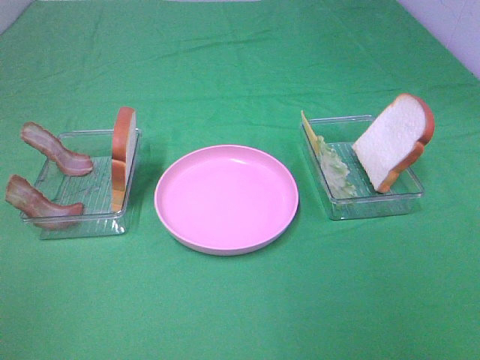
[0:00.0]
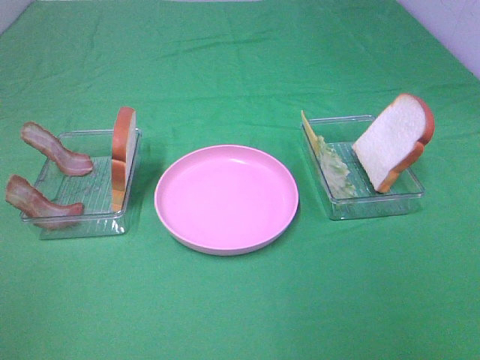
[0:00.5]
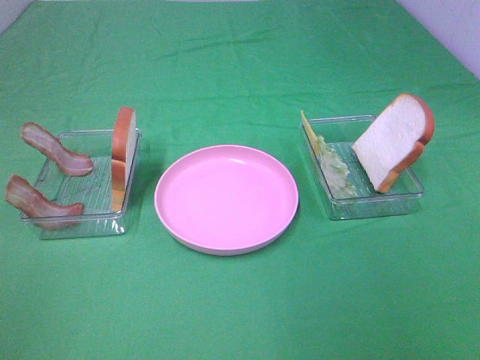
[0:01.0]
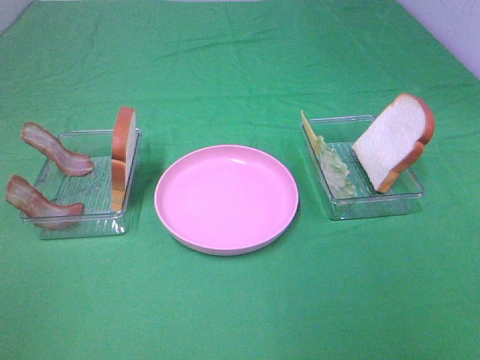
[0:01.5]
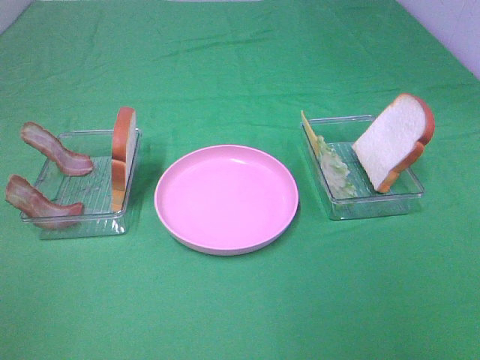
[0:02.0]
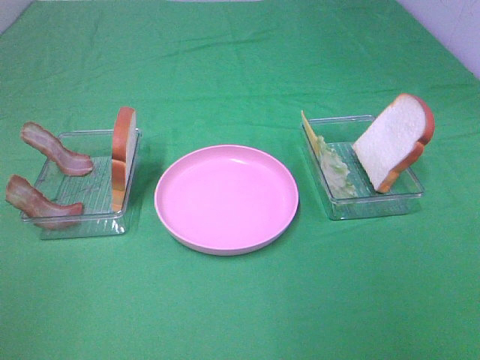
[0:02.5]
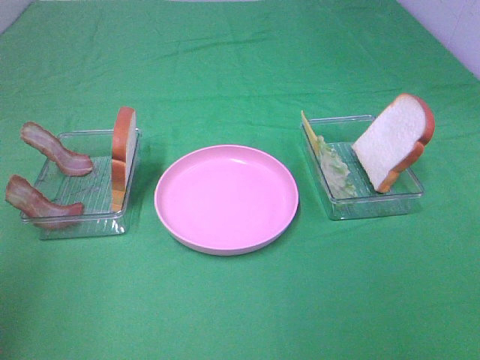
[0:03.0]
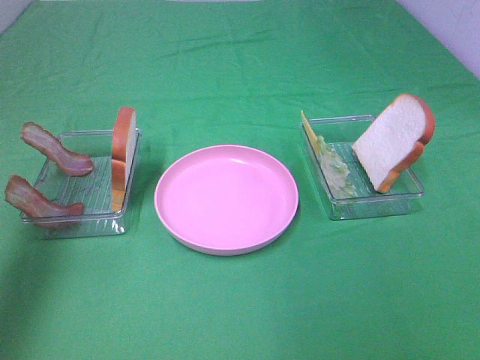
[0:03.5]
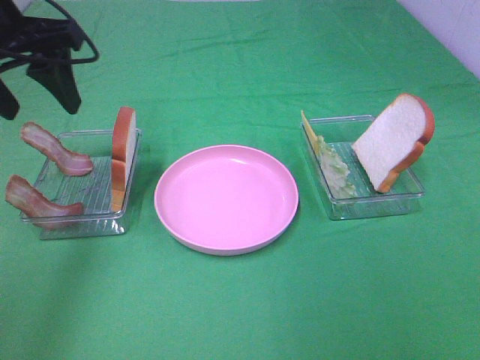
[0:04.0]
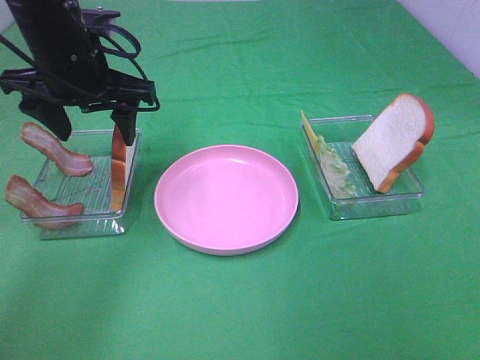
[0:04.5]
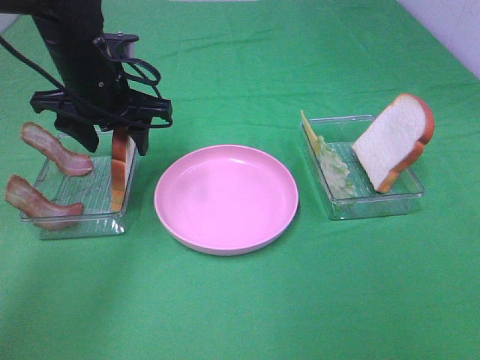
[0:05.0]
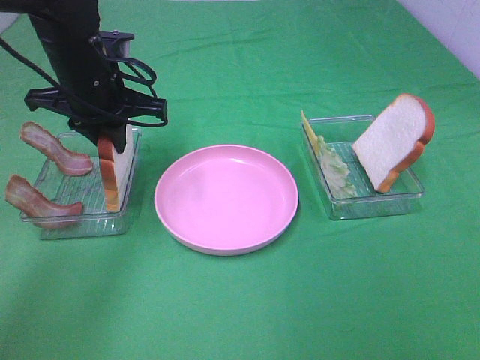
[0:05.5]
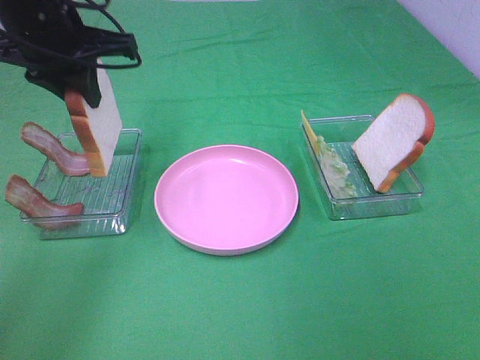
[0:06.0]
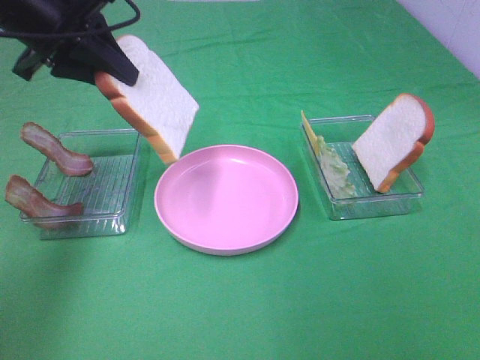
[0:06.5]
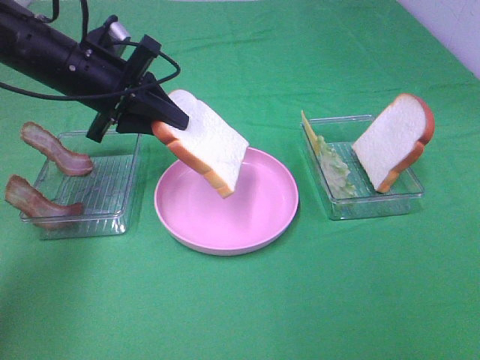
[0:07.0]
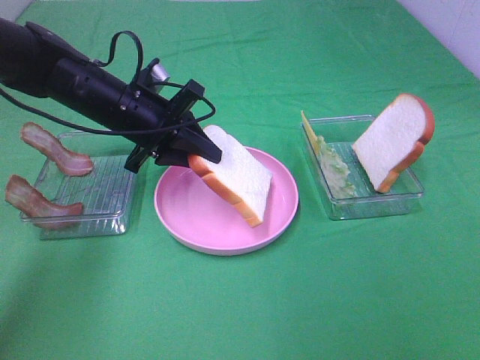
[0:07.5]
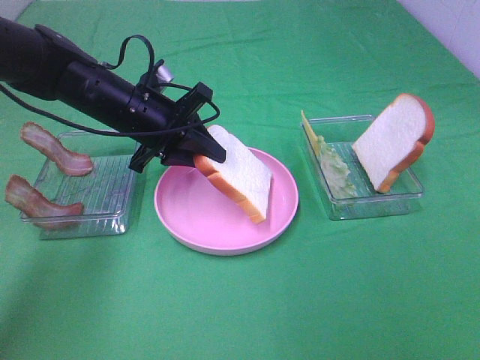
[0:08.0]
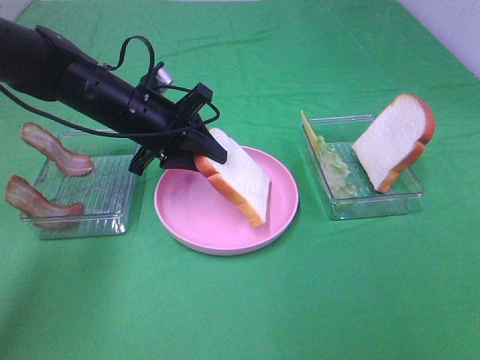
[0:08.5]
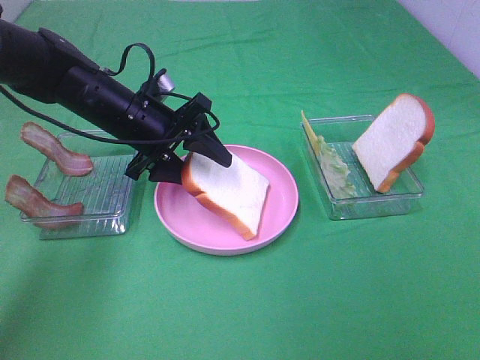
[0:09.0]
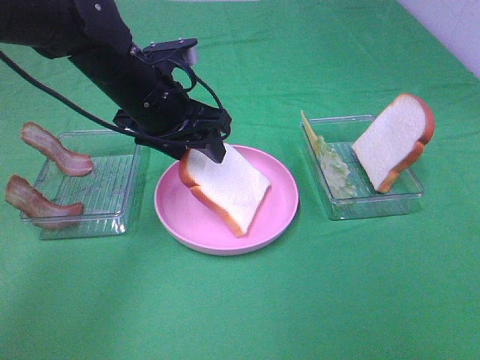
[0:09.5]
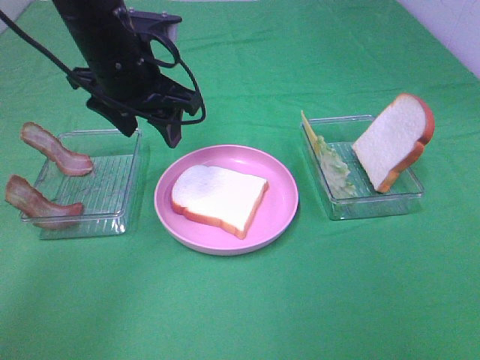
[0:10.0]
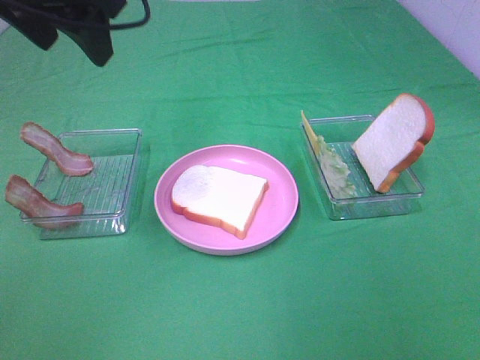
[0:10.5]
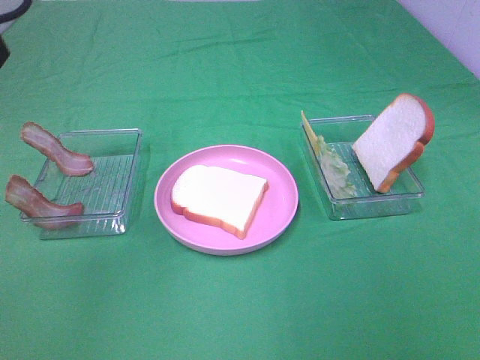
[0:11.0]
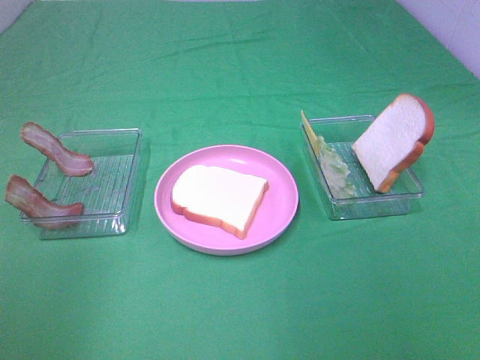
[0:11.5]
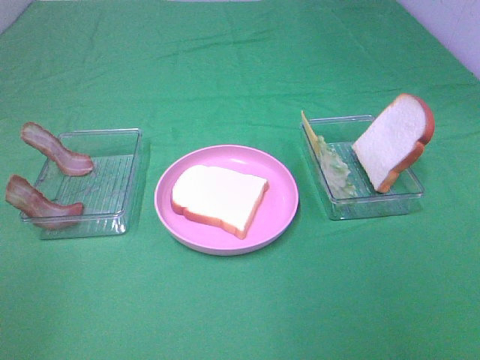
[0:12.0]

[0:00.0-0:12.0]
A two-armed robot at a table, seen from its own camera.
Task of the whole recording: Make sandwiches.
Step, 0:00.0 to 0:05.5: Left hand:grab the bread slice.
Step, 0:06.0 to 0:09.5: Left hand:place the bread slice on the plate.
0:00.0 to 0:02.0: Neither gripper changes place.
0:02.0 to 0:04.0: The left gripper moves forward, approximately 35 cm.
0:04.0 to 0:06.0: The left gripper travels downward and back again, some 10 cm each way, and closes.
0:06.0 to 0:08.0: The left gripper heads downward and to the right, covering approximately 15 cm.
0:08.0 to 0:10.0: The left gripper moves upward, approximately 10 cm, and opens up.
0:10.0 to 0:12.0: The left gripper goes about 40 cm backward and to the left.

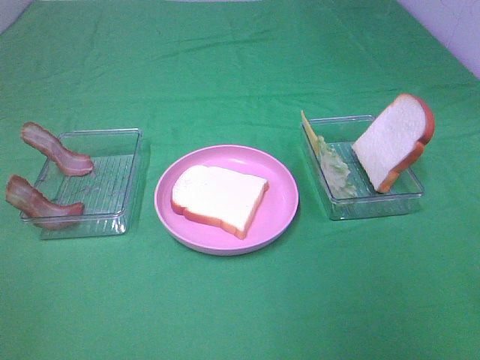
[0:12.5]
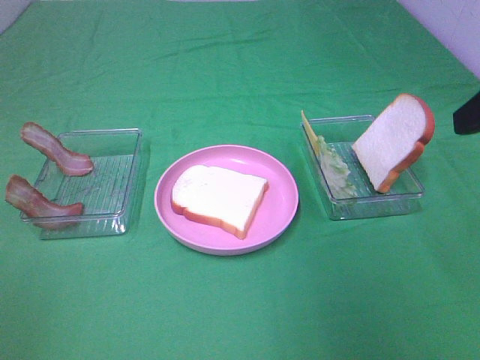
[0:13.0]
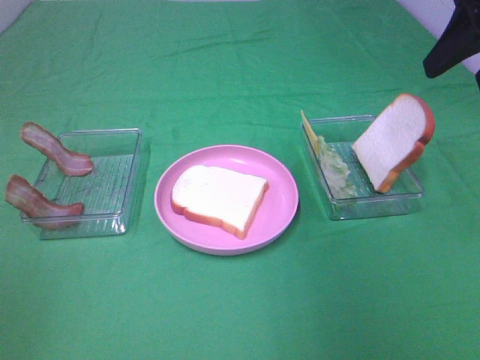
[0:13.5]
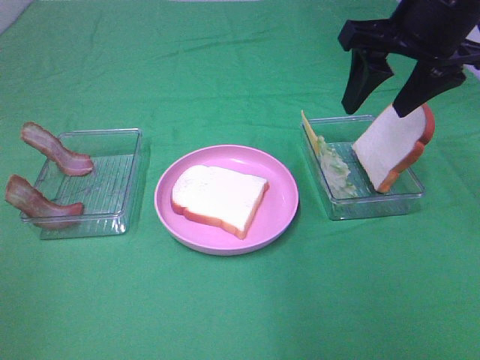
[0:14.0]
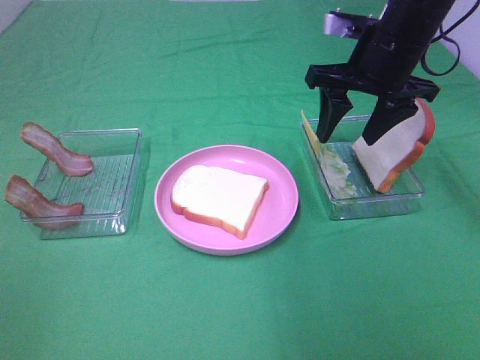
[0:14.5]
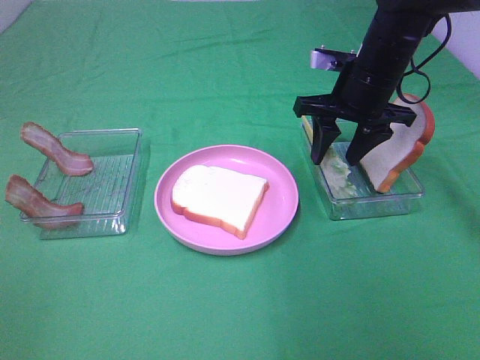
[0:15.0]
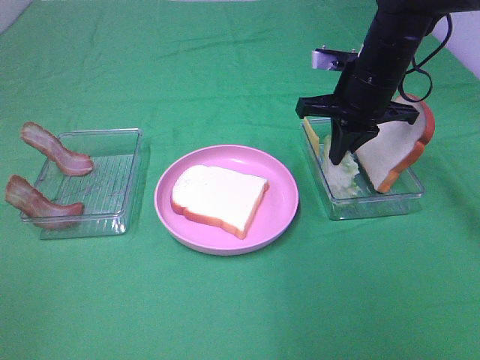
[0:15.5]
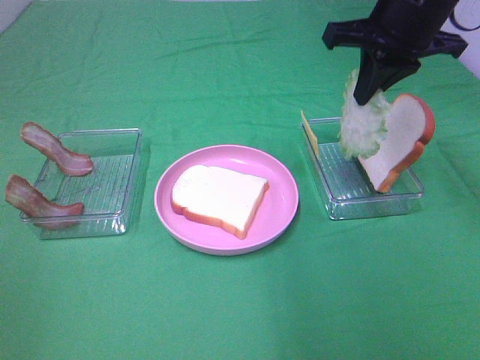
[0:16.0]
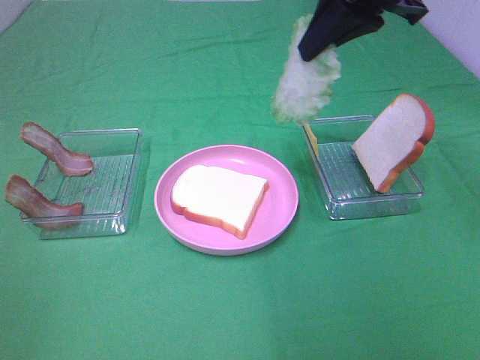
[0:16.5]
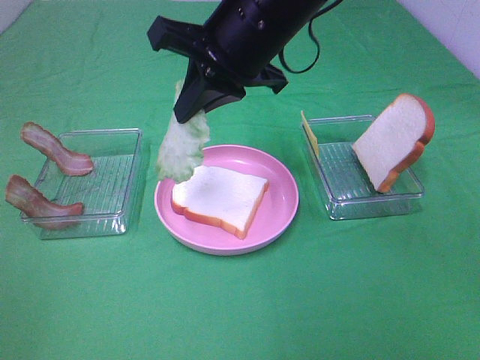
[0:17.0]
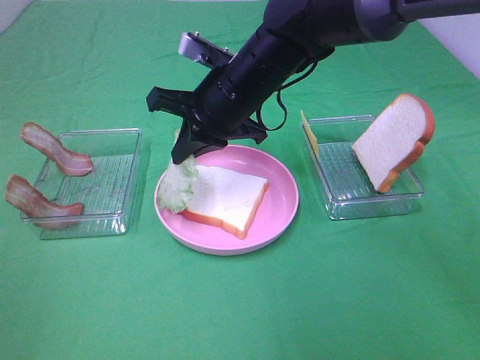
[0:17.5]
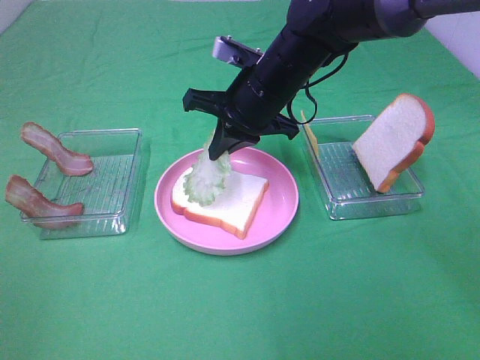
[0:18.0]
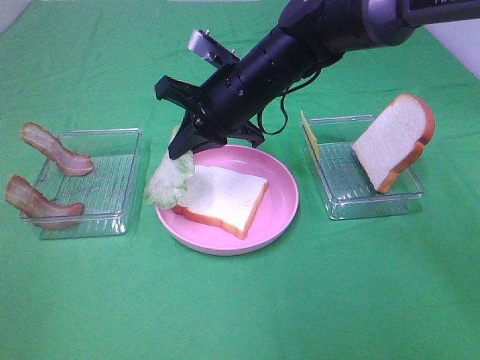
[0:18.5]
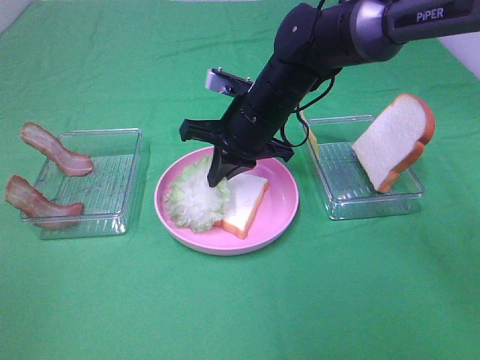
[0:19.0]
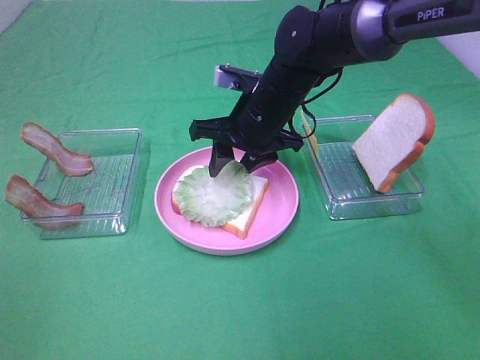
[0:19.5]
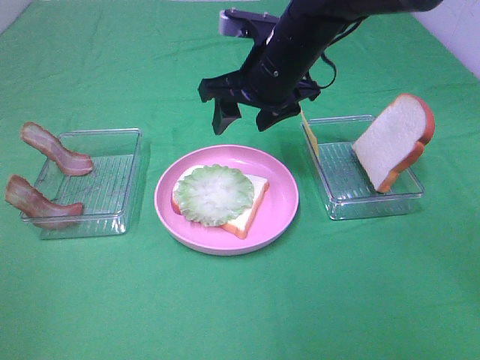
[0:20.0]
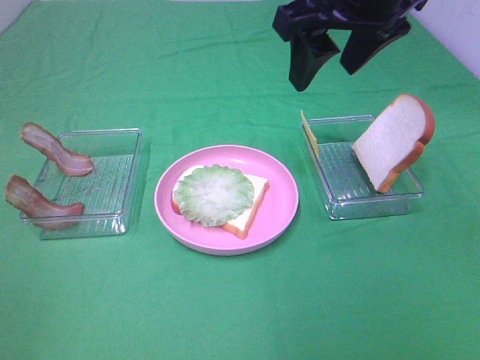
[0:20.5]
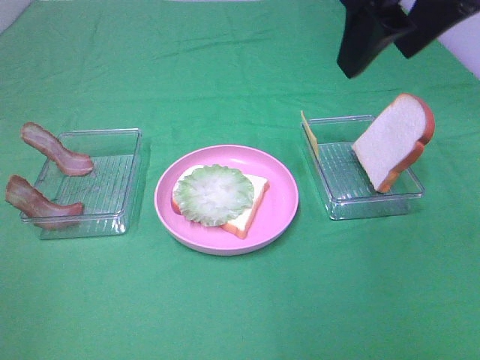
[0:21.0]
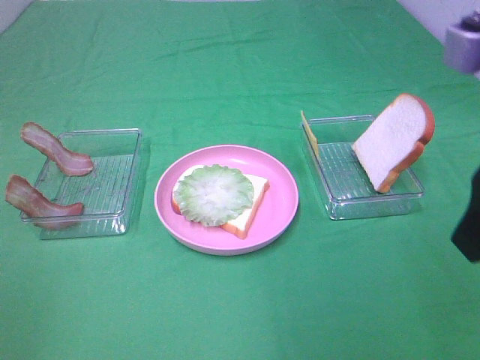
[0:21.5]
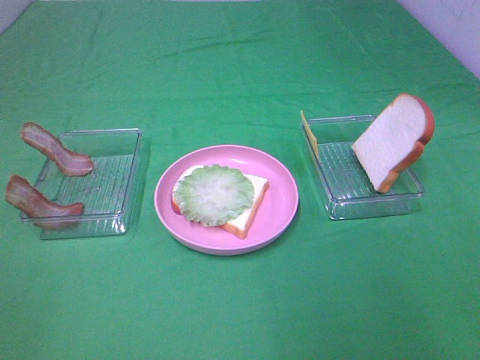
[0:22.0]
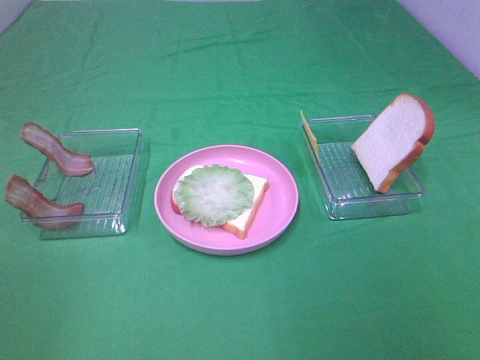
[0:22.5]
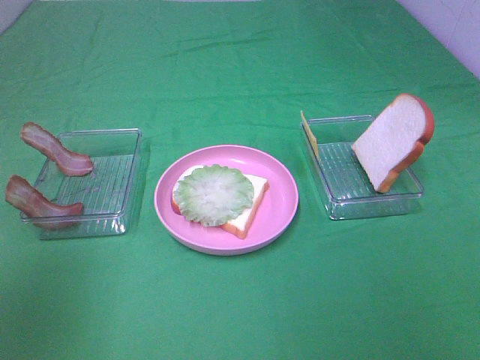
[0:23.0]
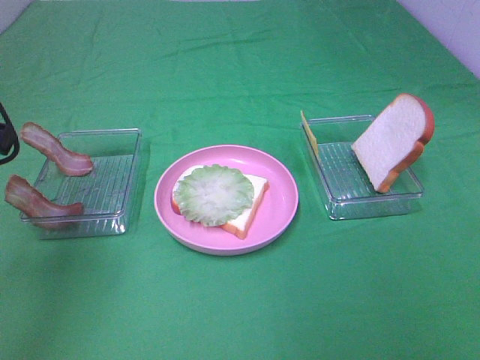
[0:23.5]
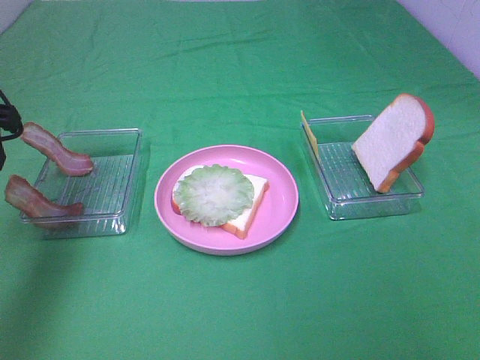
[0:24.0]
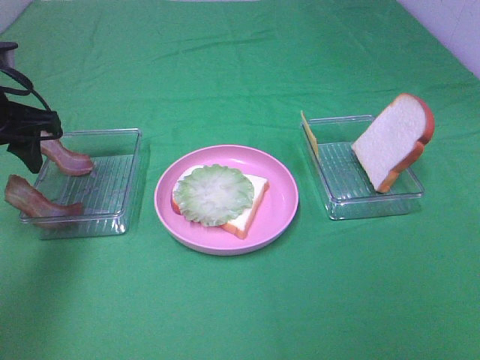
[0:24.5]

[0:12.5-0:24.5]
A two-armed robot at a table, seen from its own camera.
Task of the whole recording: Make sandwiches.
Step, 0:12.5 to 0:15.0: Right hand:grab the lettuce slice.
Step, 0:15.5 to 0:20.0: Right hand:place the lettuce slice on the bread slice.
0:12.5 to 0:14.5: The right gripper shifts roughly 30 cm forward.
0:14.5 to 0:16.5: The right gripper moves upward and backward, roughly 10 cm, and closes its fingers.
0:16.5 to 0:18.5: The right gripper travels downward and to the left by about 20 cm.
0:18.5 to 0:20.5: The right gripper travels upward and to the right by roughly 20 cm, and opens its fingers.
0:20.5 to 0:22.5: The right gripper is displaced backward and to the right by approximately 35 cm.
0:22.5 to 0:24.5: The left gripper is displaced forward by approximately 30 cm.

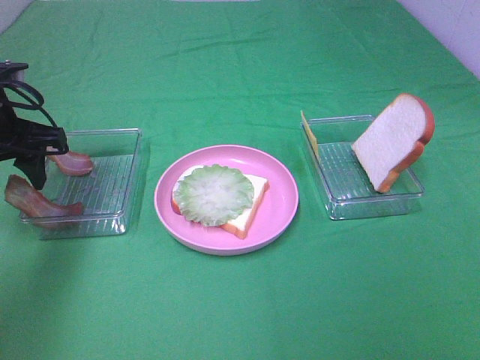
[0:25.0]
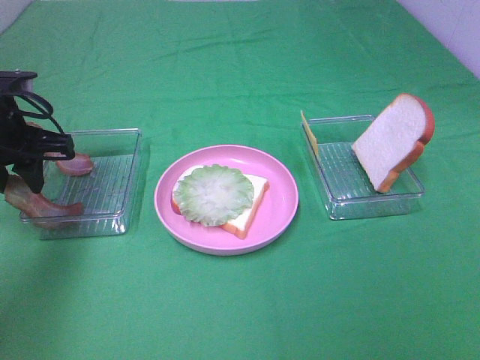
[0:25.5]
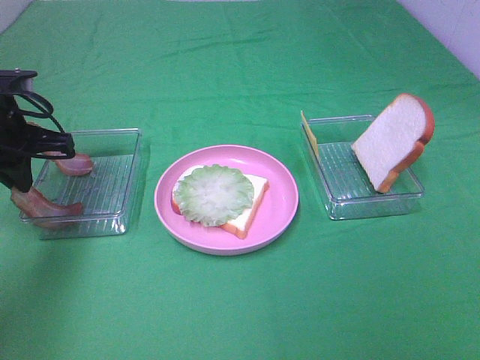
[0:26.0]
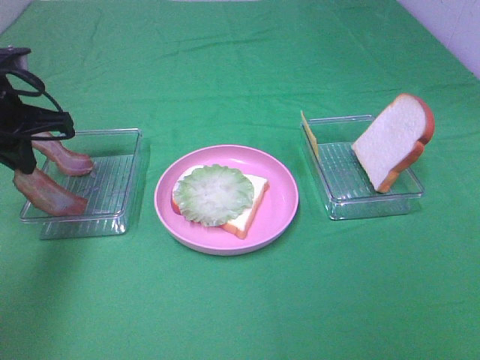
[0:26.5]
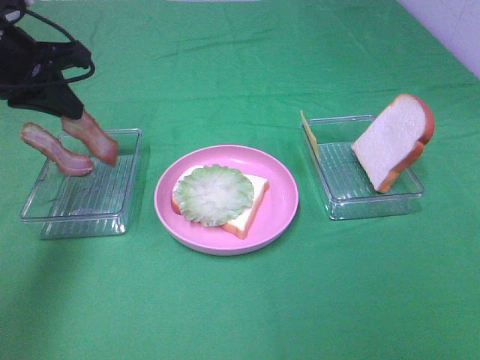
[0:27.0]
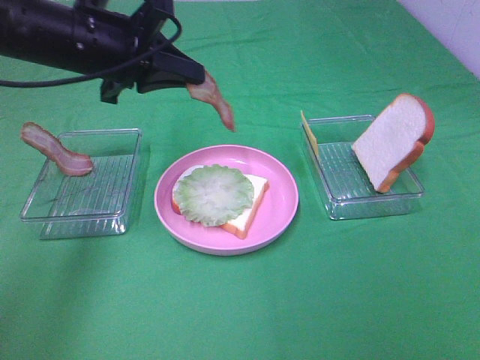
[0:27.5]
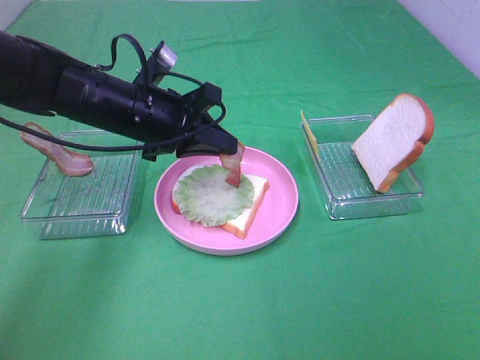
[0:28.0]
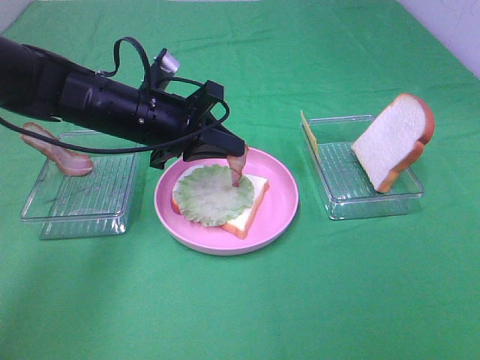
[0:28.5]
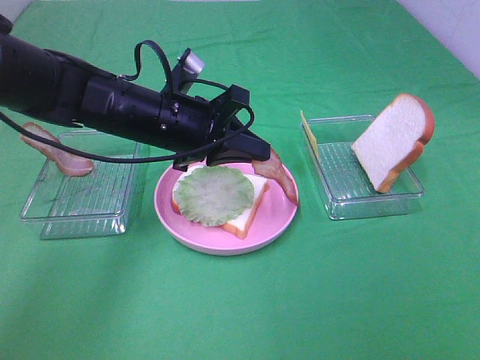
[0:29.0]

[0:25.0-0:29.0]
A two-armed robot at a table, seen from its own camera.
Task of the whole recording: Make sandwiches.
0:25.0 to 0:27.0: The left gripper heads upward, covering some 5 cm, and closes up.
0:27.0 to 0:29.0: The left gripper shifts some 20 cm to the right and downward.
